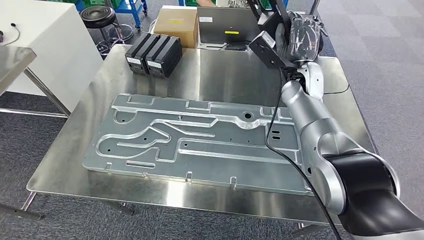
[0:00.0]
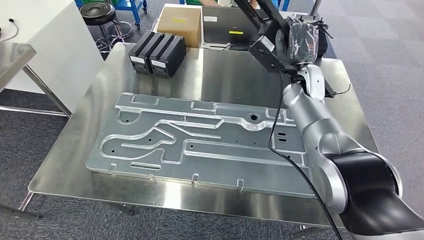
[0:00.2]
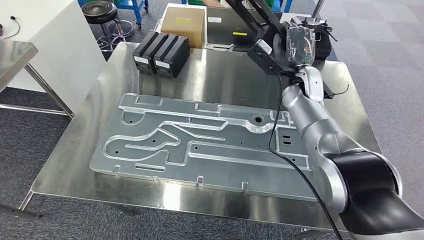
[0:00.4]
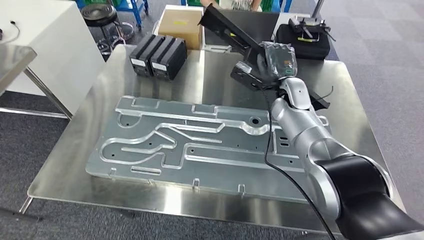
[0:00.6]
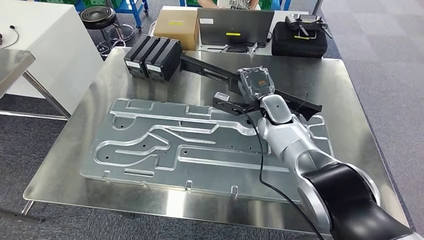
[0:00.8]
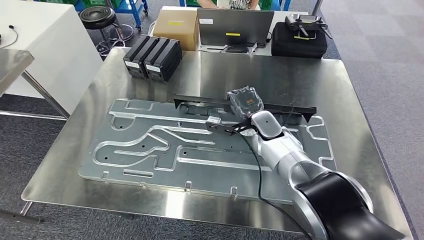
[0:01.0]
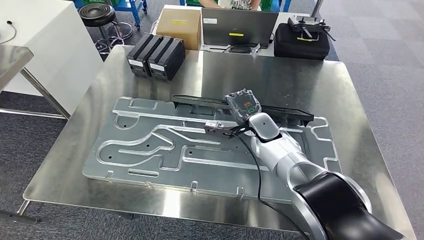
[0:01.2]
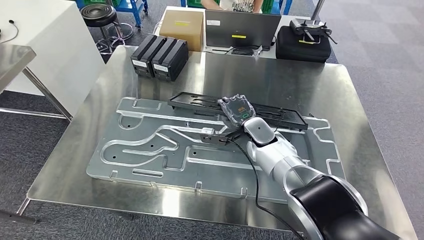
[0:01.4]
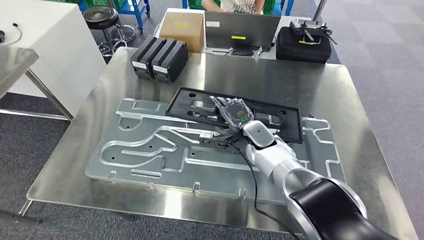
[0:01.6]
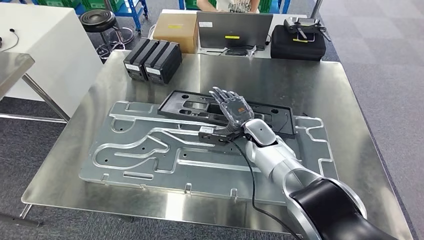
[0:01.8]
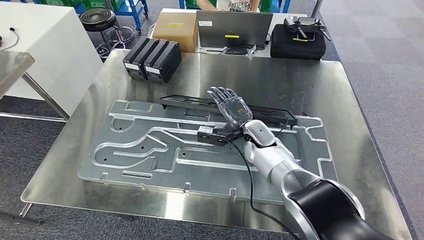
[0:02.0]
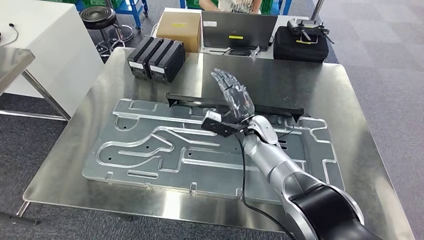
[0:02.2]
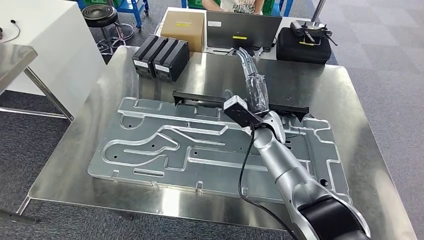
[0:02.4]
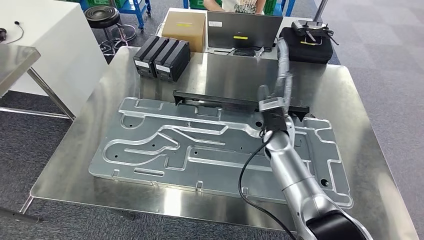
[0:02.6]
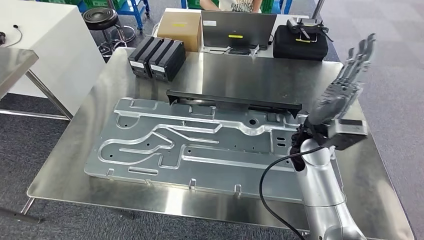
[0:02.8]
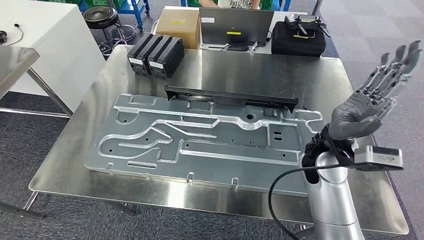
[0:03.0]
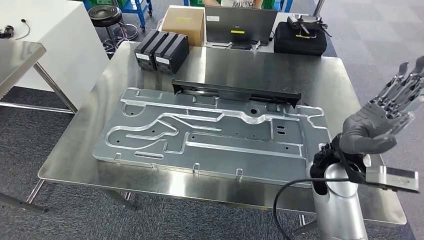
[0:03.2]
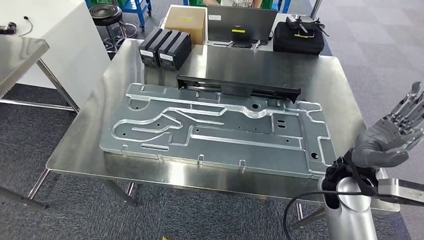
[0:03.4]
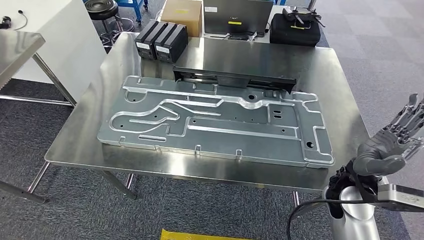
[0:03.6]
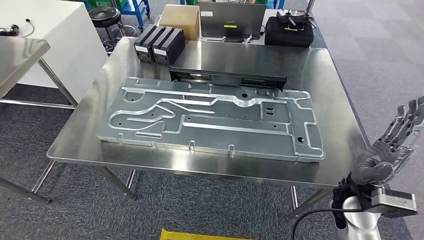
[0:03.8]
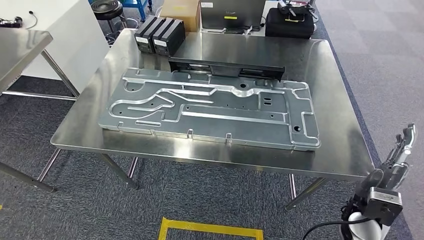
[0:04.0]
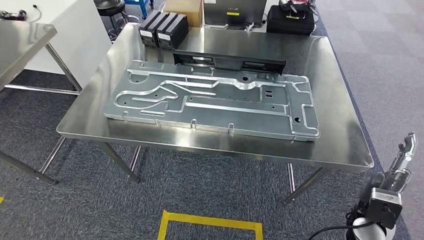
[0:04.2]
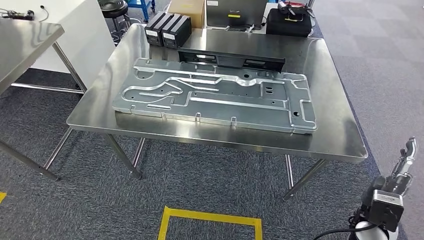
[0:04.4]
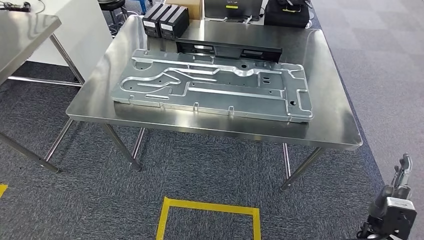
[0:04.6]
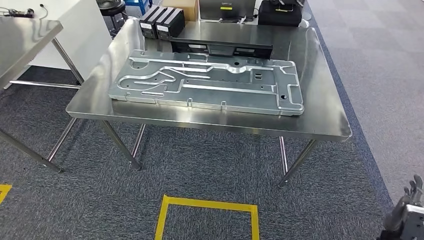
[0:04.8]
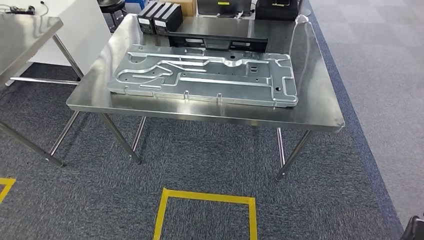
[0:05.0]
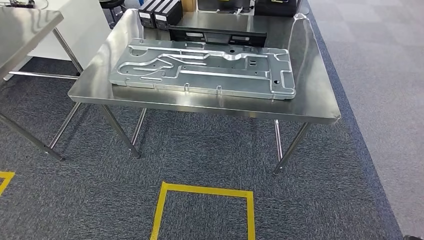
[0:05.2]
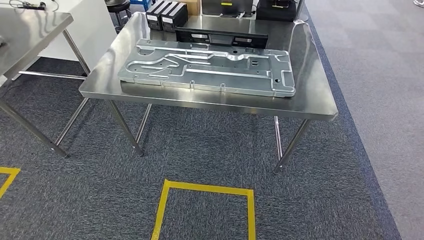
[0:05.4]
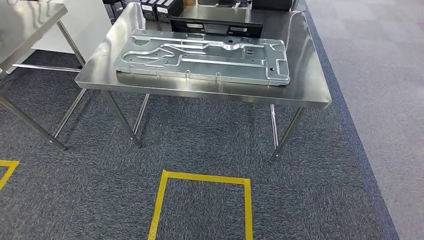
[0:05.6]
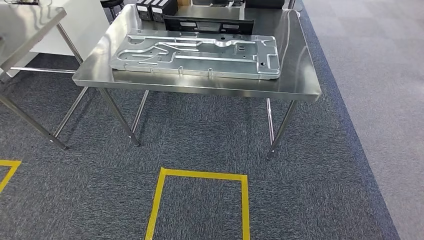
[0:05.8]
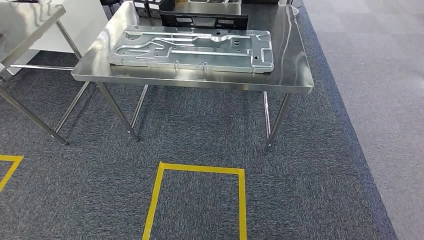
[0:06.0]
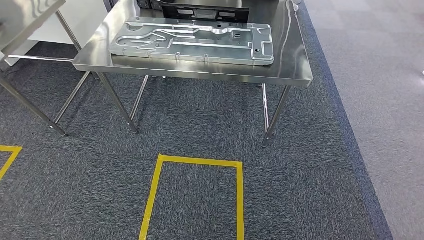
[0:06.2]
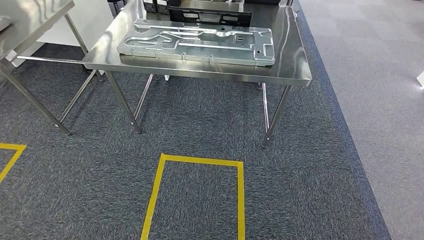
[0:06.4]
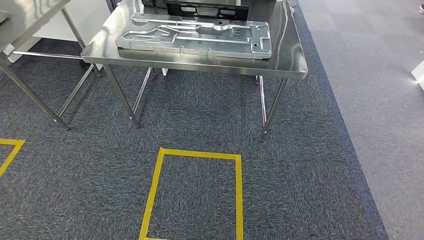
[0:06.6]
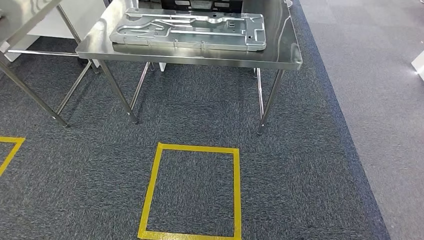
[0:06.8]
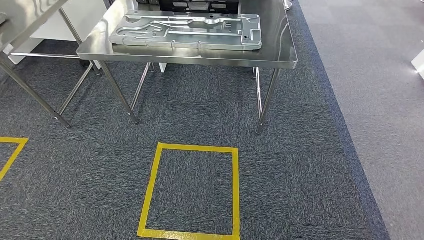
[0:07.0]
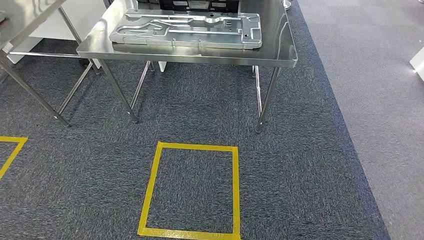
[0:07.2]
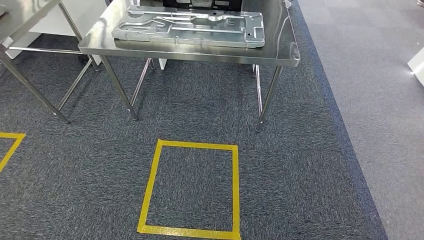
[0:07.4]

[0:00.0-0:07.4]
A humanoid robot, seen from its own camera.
Step, 0:00.0 to 0:04.0: Insert the large material into the corresponding slot on the workbench.
Step, 0:04.2 to 0:07.4: Move to the initial position of the shelf.
